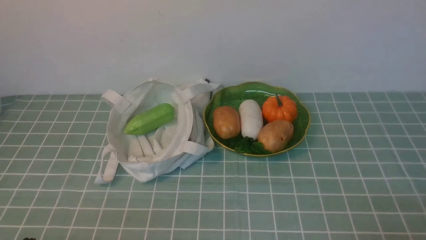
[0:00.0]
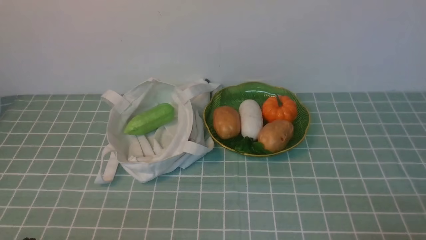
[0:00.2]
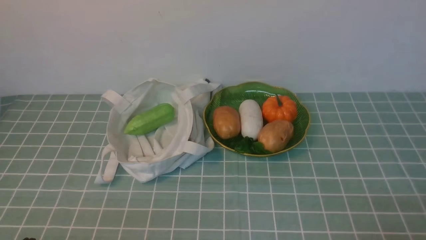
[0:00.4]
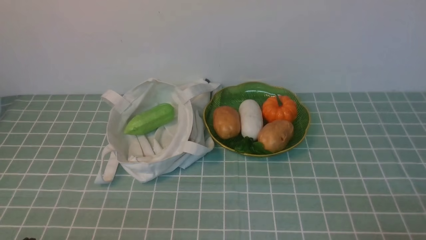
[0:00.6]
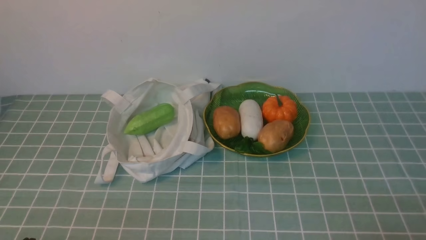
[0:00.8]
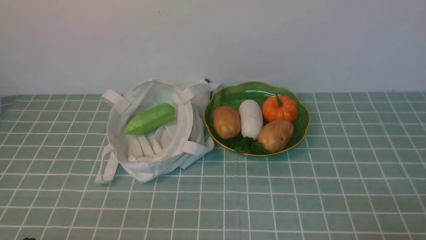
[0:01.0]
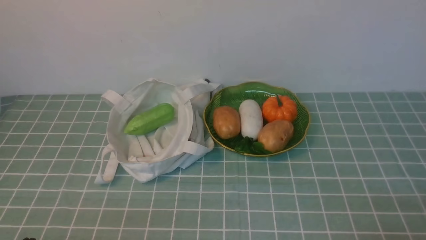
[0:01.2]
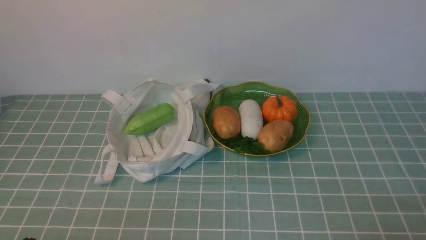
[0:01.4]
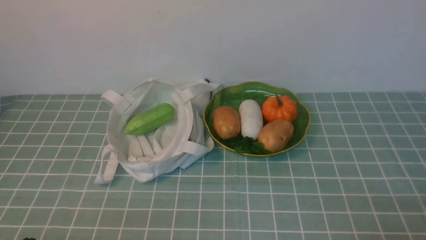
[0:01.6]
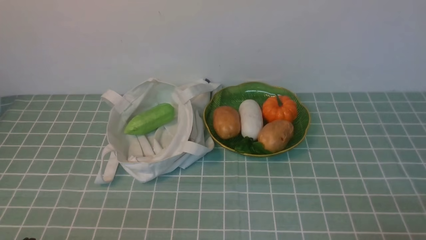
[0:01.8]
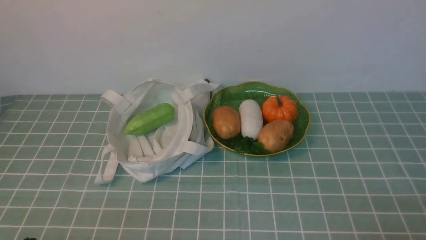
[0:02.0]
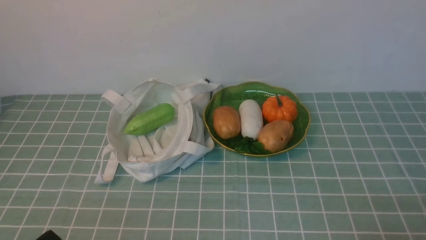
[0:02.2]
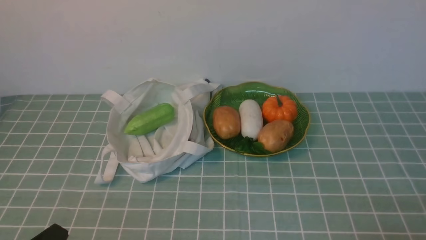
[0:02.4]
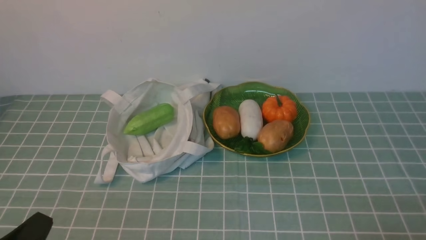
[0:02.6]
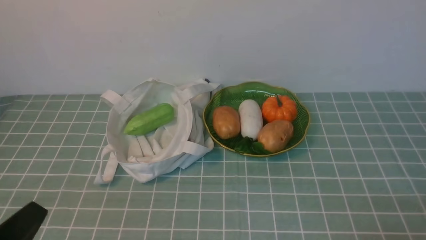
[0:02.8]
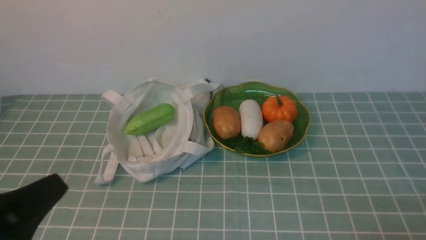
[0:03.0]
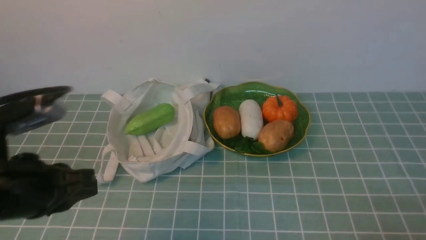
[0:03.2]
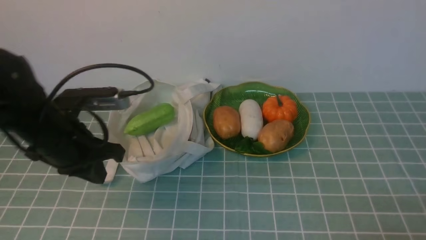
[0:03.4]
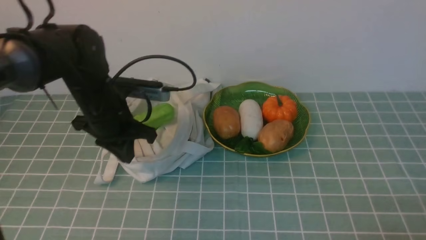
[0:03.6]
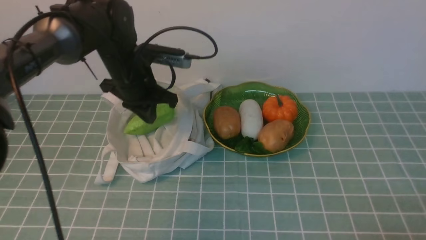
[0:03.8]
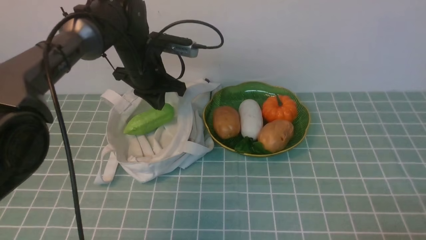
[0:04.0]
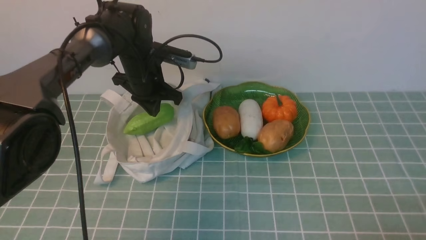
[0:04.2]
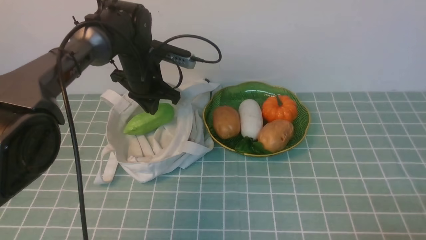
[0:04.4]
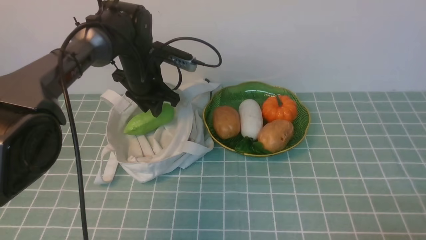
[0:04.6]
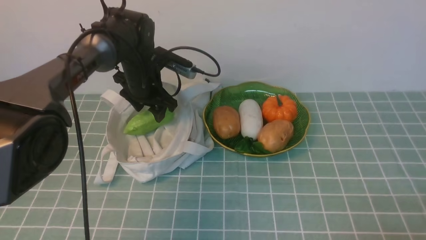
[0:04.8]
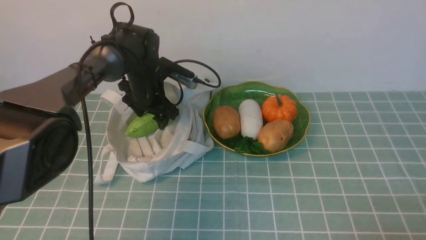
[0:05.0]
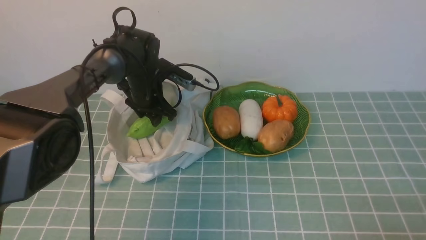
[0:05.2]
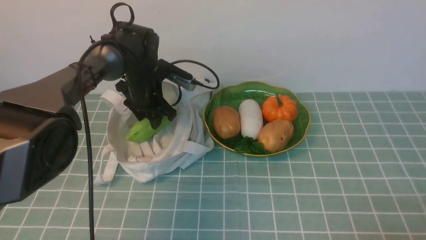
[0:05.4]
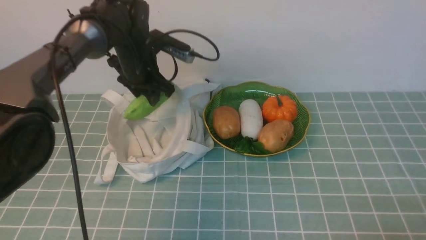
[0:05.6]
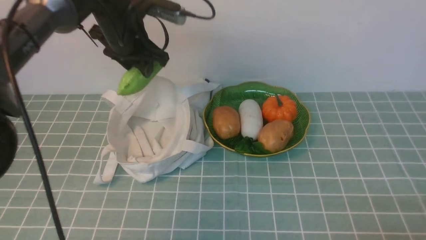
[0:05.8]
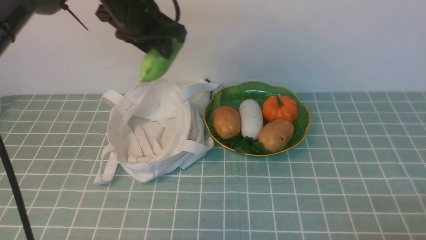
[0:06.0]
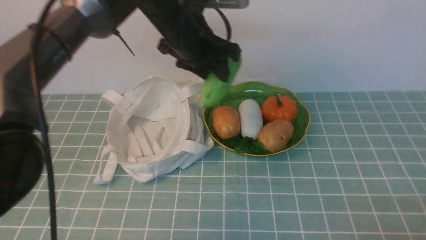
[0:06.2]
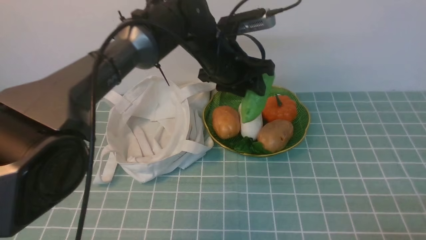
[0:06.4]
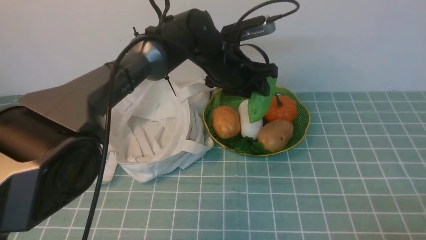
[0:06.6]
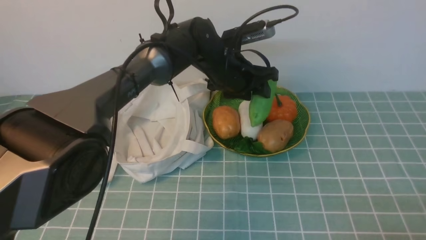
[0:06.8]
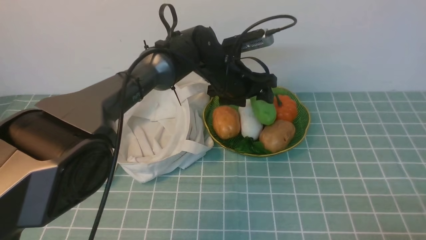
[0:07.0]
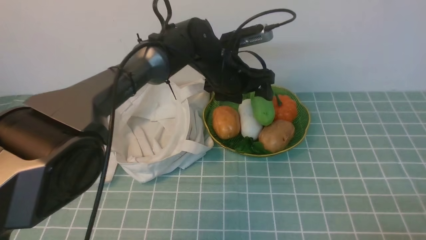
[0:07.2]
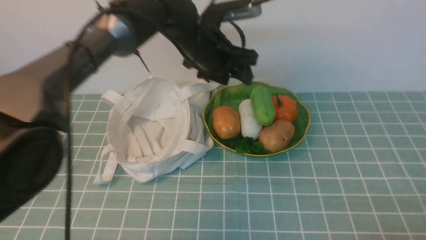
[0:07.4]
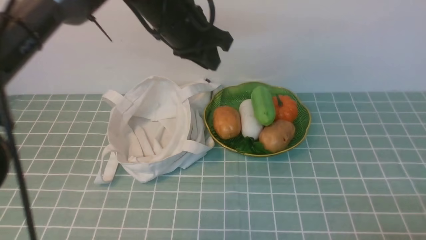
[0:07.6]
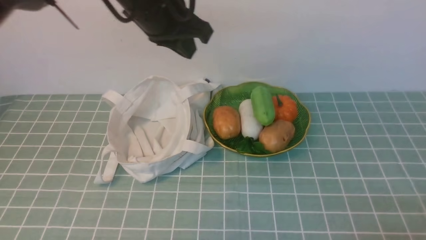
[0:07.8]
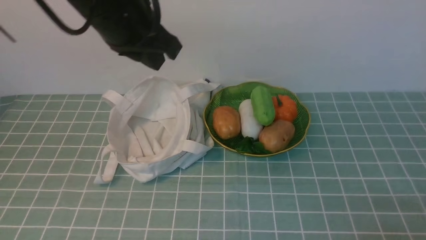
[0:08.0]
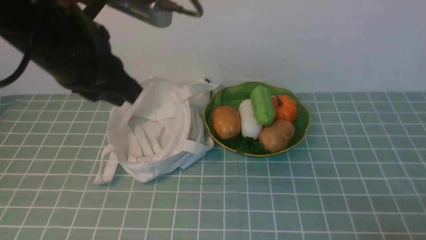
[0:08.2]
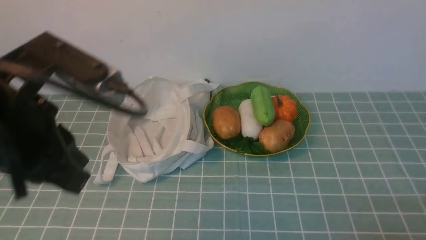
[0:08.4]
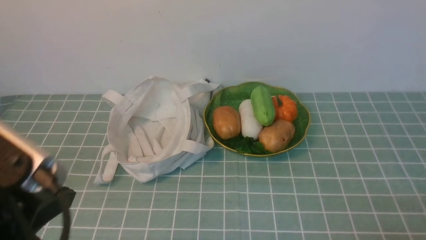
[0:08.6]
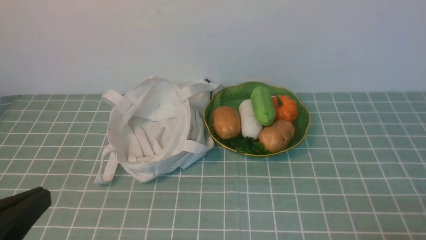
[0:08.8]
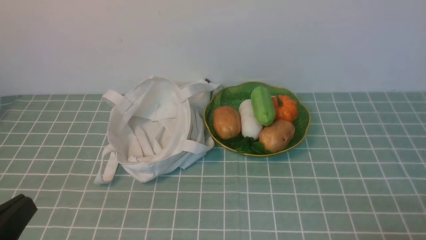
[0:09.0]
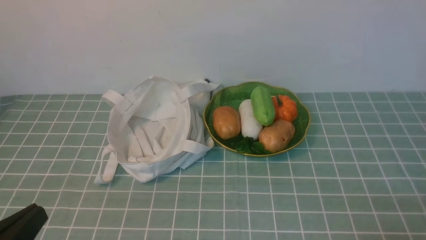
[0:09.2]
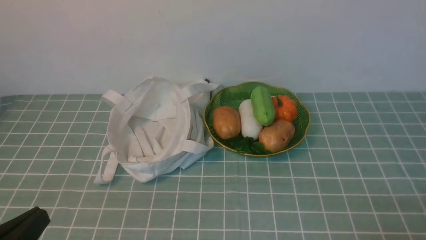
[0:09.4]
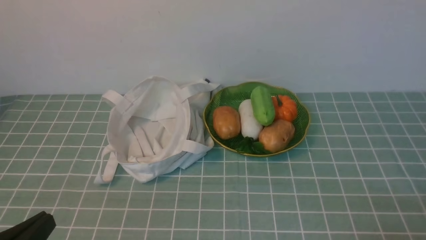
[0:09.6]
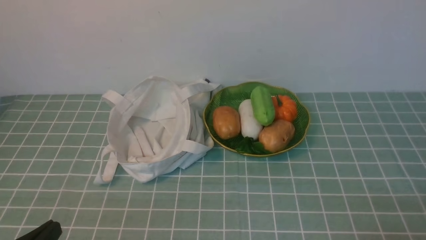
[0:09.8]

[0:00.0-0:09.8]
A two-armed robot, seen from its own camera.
Task of the whole recording: take vegetables from cloth bag on blue coffee tablecloth place on plate.
Step, 0:00.0 to 0:05.2: Grasp the bitter melon with left gripper.
Step, 0:05.4 to 0:07.2: Place the bitter melon on the plate with left gripper.
0:00.0 to 0:01.4: Both grippers stay about where they are.
0:01.4 to 0:02.8: The left gripper goes roughly 5 cm upward.
0:02.8 to 0:04.2: The left gripper goes roughly 40 cm forward.
0:04.2 to 0:05.6: The left gripper opens up.
0:05.6 to 0:07.0: The left gripper is displaced to the right by some 15 cm, and opens.
0:07.0 to 0:08.4: The left gripper travels backward, to the left and upward by approximately 40 cm, and closes its fingers.
0:08.4 to 0:09.8: The left gripper heads downward and backward, covering about 20 cm.

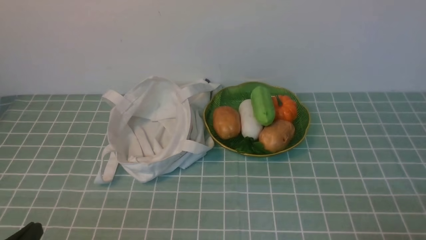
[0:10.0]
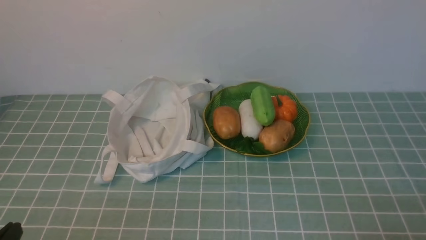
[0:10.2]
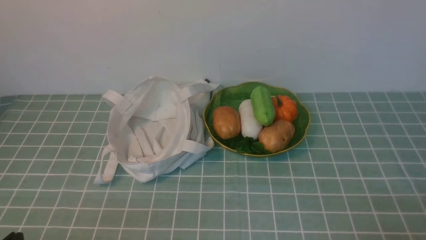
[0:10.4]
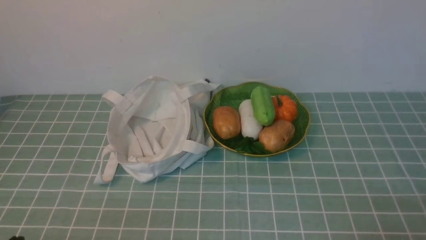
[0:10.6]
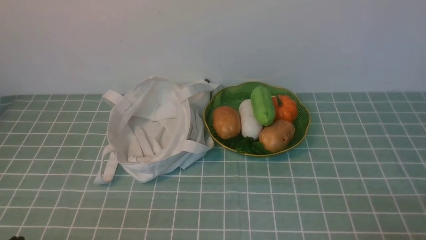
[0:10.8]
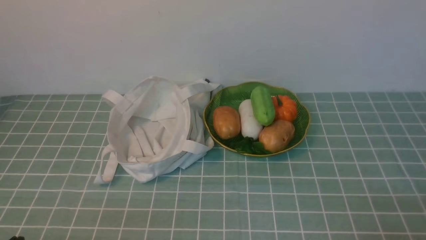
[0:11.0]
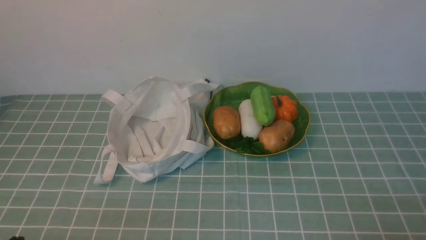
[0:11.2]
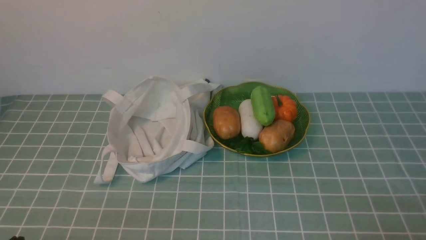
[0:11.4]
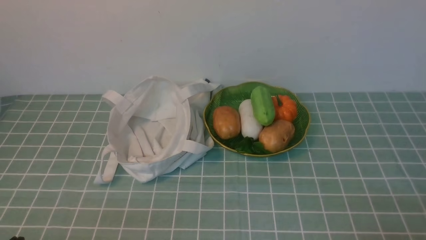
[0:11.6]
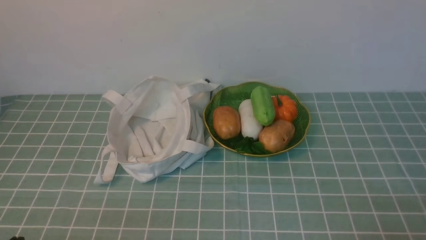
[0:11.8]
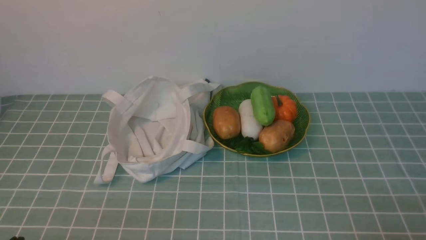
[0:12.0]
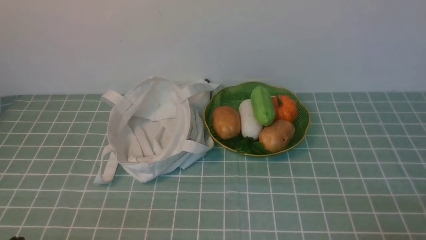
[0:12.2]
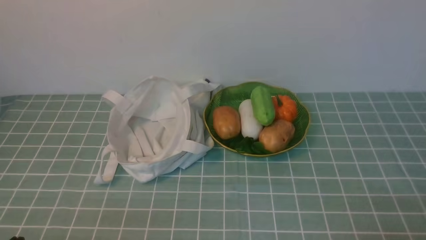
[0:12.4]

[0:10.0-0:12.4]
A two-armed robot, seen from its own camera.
Task of the whole recording: take vegetables from cloth bag on blue coffee tablecloth place on plate.
0:11.2 to 0:12.4: The two grippers keep their place.

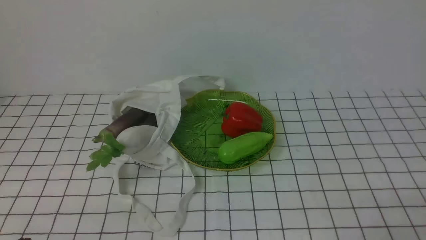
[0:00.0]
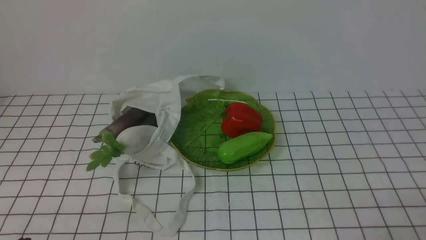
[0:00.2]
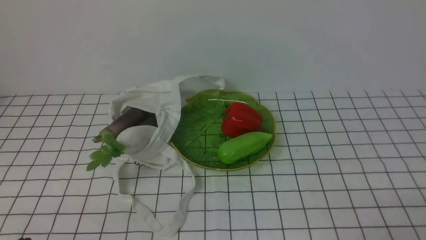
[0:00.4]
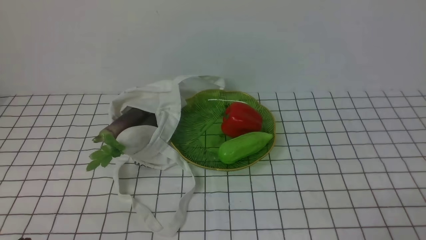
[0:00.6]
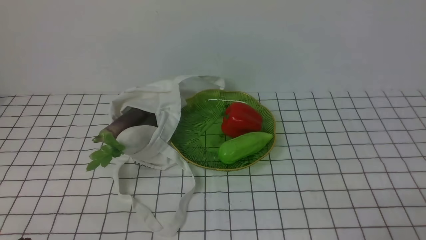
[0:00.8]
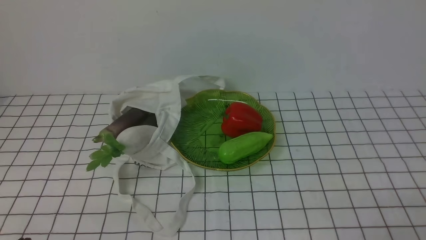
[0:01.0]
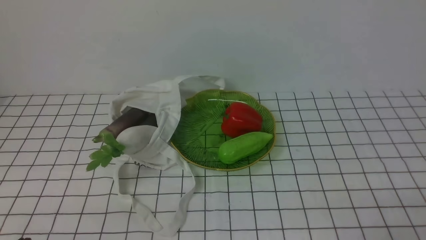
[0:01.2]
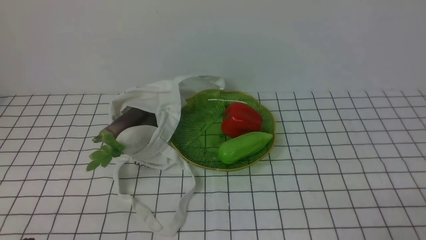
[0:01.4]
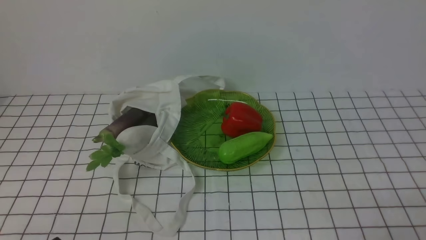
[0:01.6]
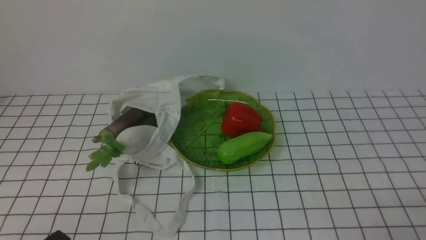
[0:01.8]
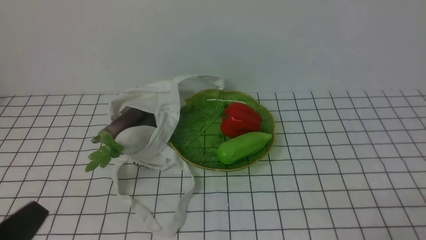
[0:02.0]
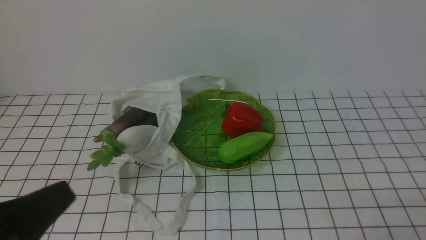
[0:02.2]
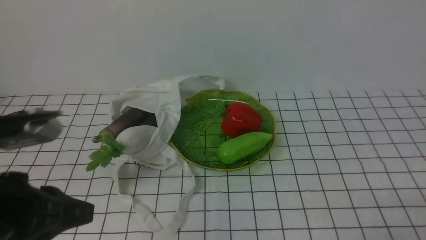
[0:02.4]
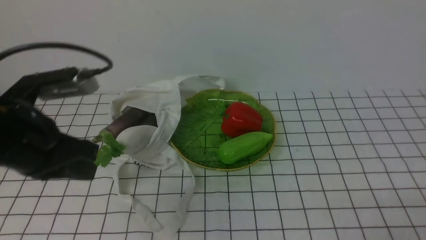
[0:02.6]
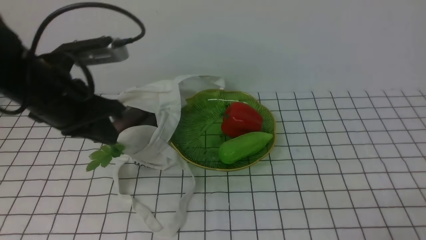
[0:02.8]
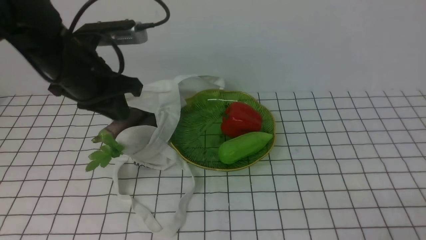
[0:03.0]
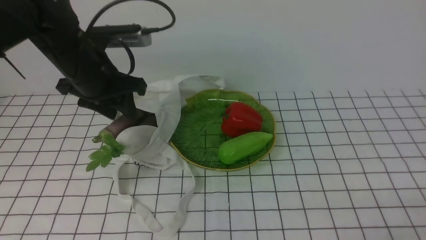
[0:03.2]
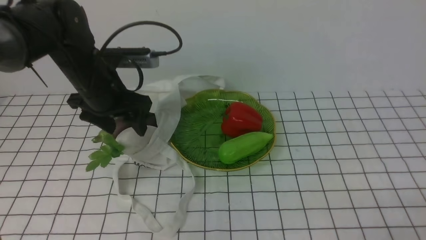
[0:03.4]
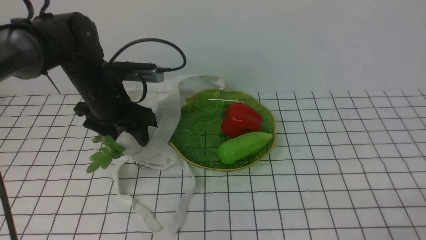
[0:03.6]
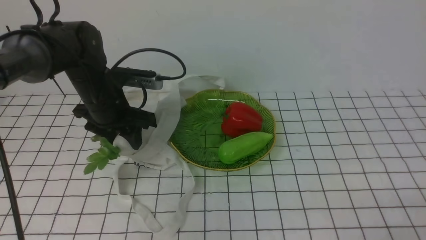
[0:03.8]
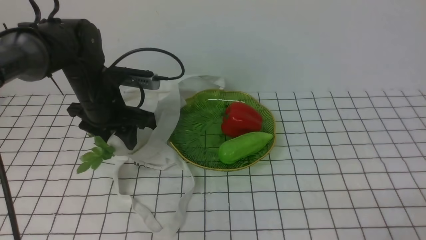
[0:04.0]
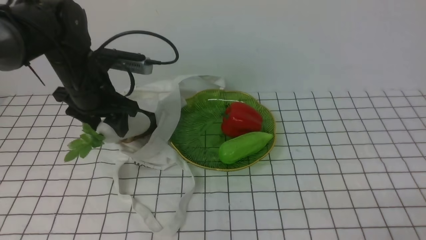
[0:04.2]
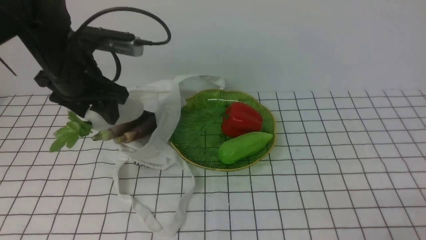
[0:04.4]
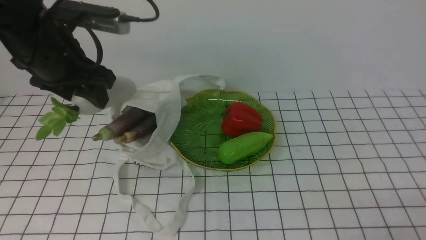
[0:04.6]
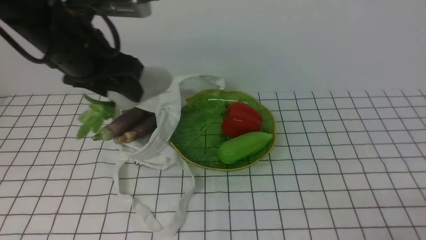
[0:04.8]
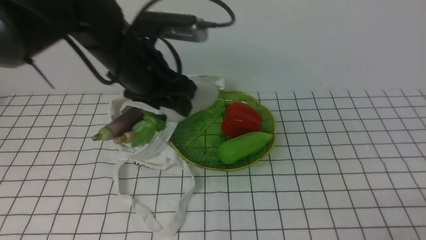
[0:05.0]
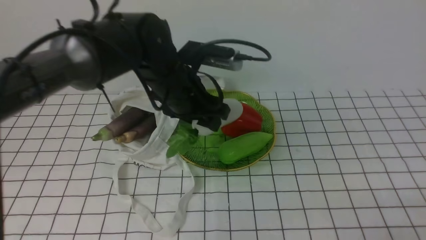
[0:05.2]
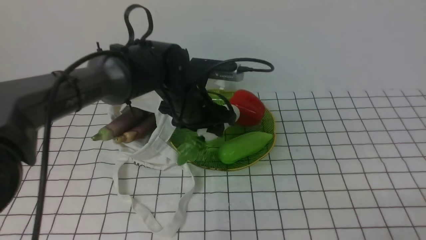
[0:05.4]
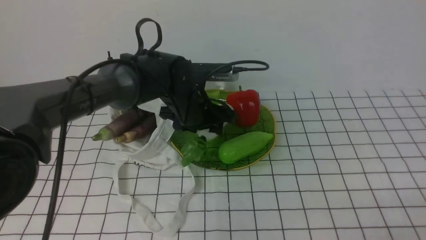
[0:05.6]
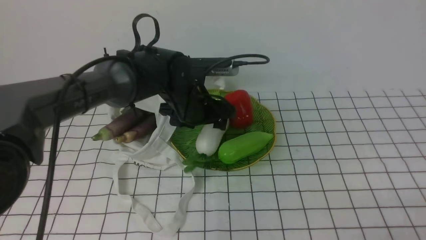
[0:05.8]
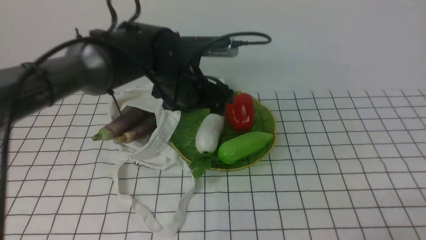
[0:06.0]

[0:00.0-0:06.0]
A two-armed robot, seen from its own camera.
Task of the whole recording: take vegetables from bag on white checkered tablecloth place on plate.
Step, 0:00.0 to 0:03.8: Grasp the radish with left gripper.
Step, 0:04.0 to 0:05.8: Place the radish on the plate with left gripper.
0:01.6 to 0:03.0: The left gripper moves forward and upward, approximately 30 cm.
0:03.0 to 0:04.4: The left gripper travels downward and back again, approximately 10 cm each way, and opens.
0:04.4 to 0:06.0: The left gripper is displaced to the right by roughly 15 cm.
